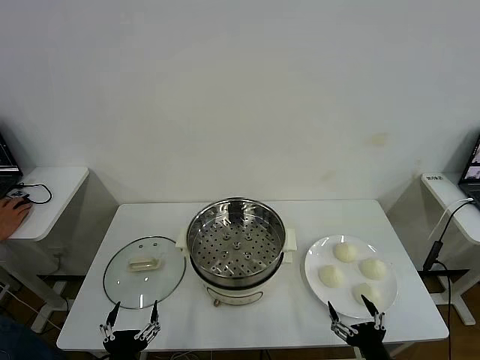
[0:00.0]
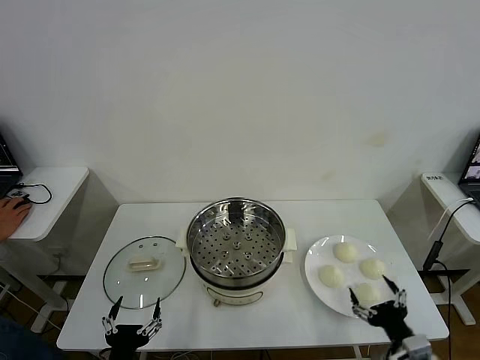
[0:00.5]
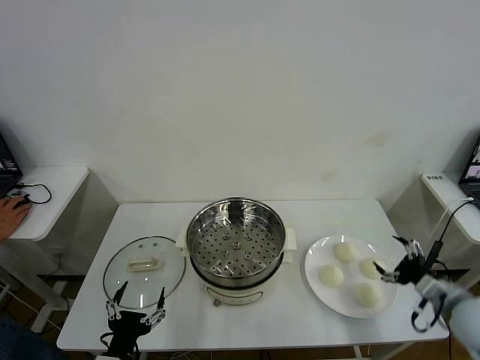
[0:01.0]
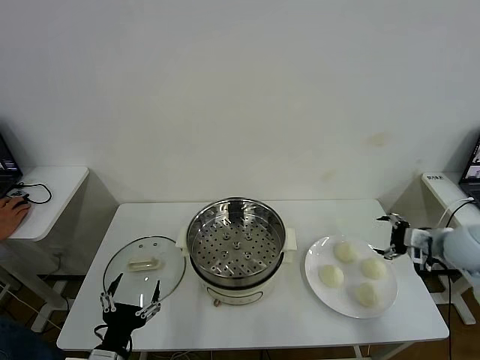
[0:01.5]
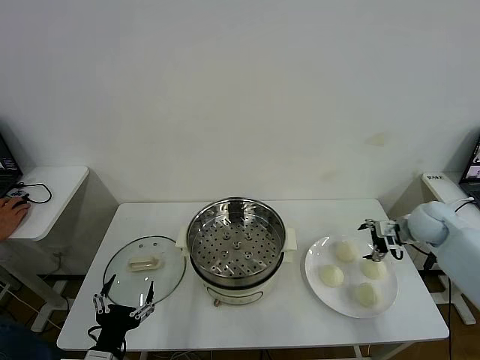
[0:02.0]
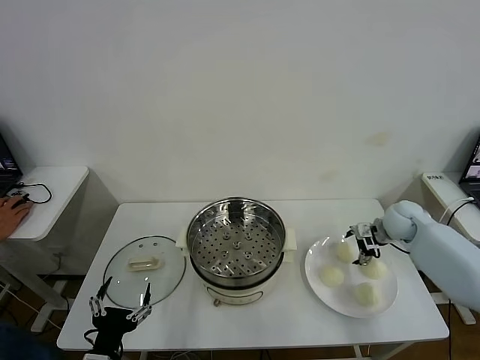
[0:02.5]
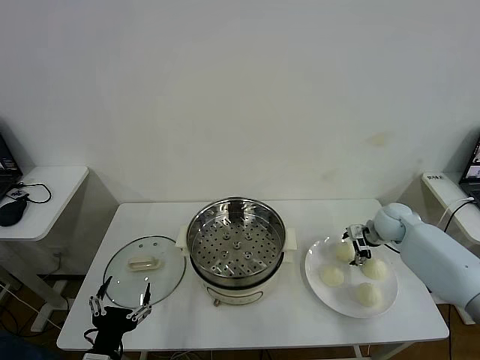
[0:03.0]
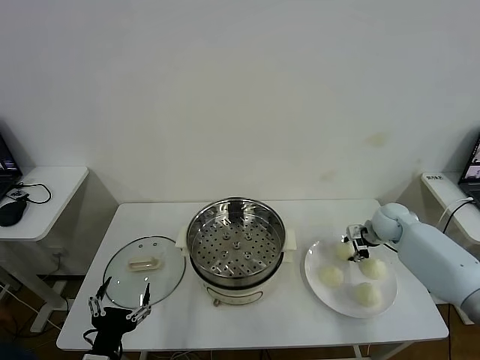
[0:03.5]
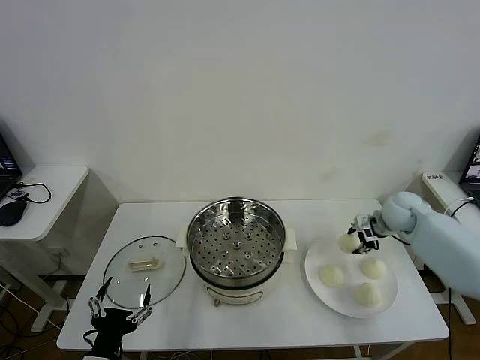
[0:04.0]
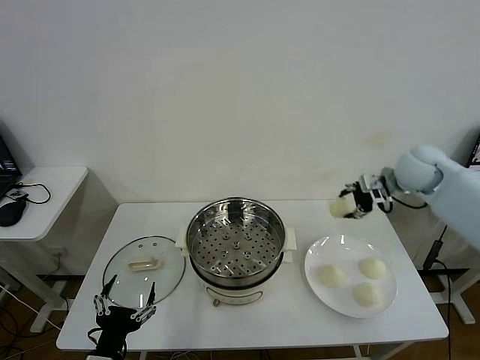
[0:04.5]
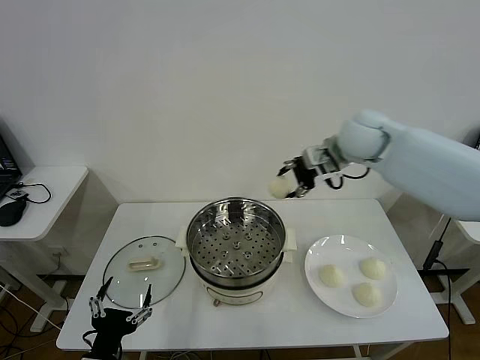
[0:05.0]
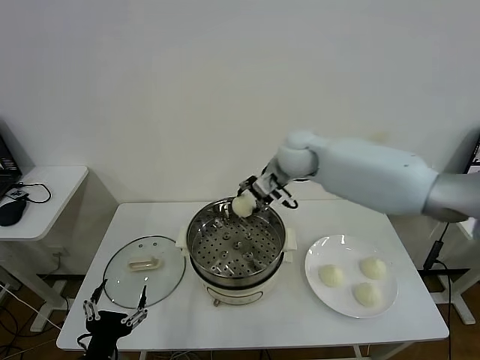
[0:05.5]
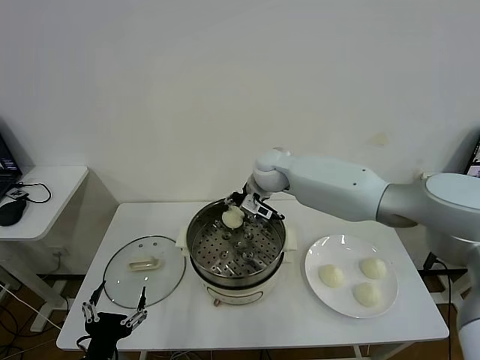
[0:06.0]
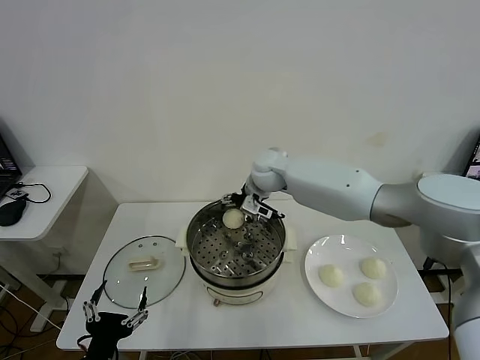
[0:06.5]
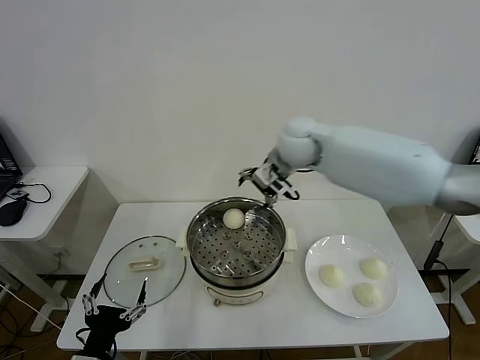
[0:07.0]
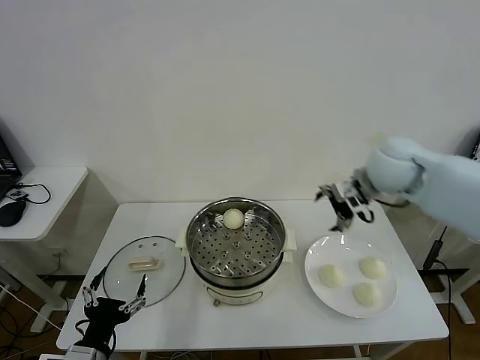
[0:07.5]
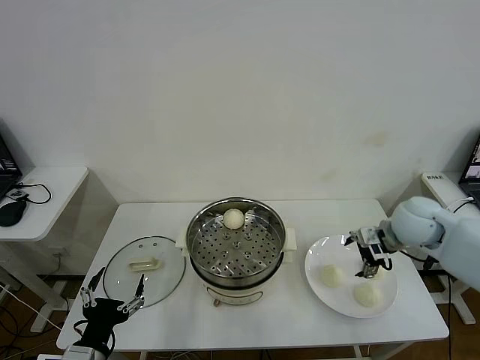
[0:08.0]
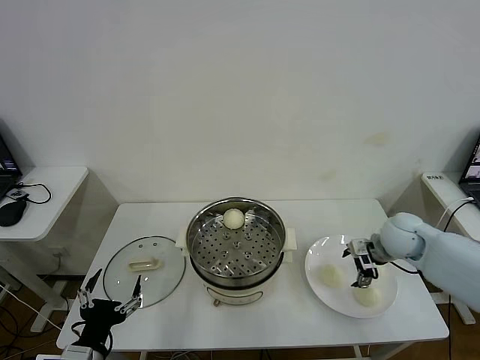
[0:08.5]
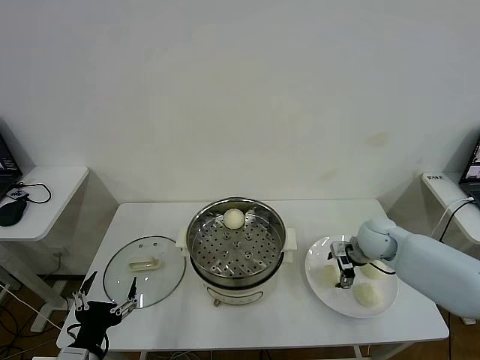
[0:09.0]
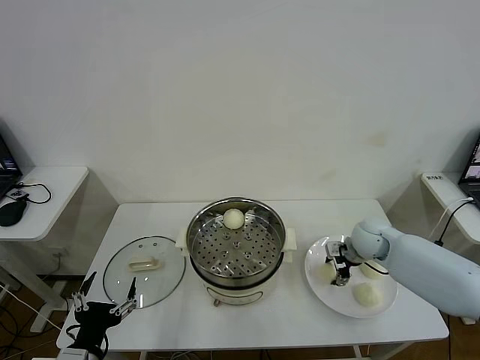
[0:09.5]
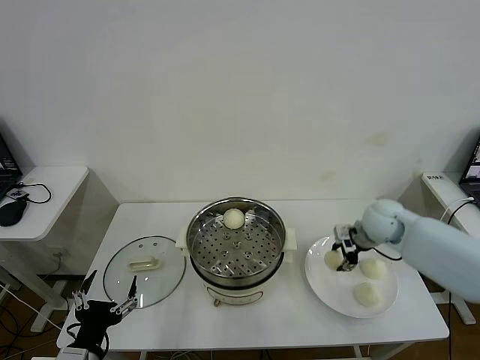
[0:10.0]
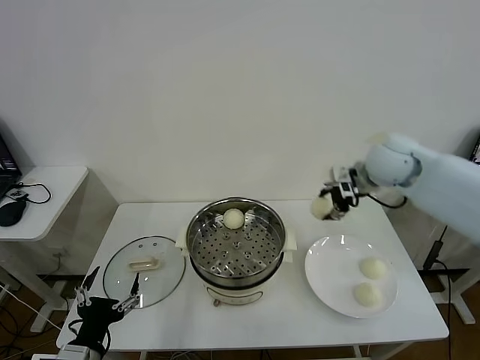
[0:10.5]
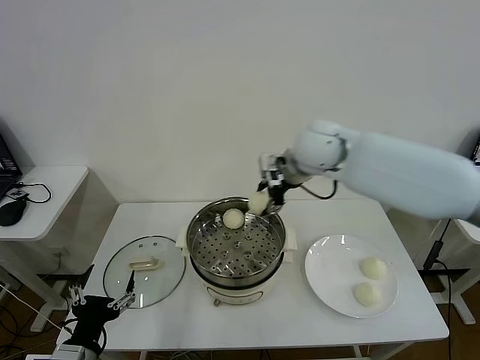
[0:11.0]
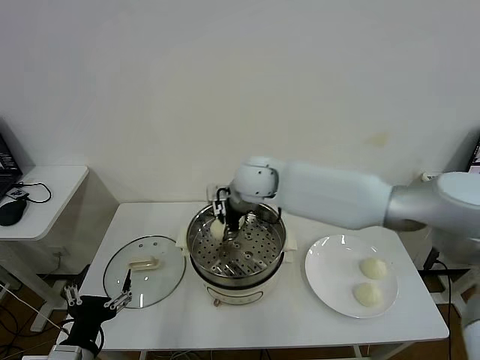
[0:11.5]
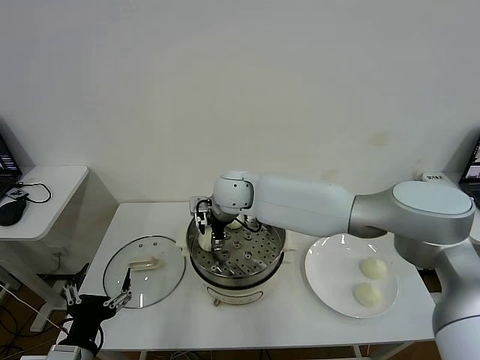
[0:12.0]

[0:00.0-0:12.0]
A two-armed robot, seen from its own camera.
Task of the whole recording: take steamed baozi put them in steamer then cover it.
Step, 0:00.0 to 0:03.0: Grasp the baozi in the plate with right gripper.
Step, 0:03.5 to 0:06.0: Place the baozi on the steamer with right gripper.
Step, 0:07.0 to 0:09.5: Grasp the baozi in the plate with right gripper.
0:02.0 to 0:04.0: The right gripper closes up.
0:04.0 to 0:06.0: The right gripper travels to the left by roughly 35 cm.
0:06.0 to 0:08.0: The right gripper goes approximately 30 cm to the right and backward, and opens.
0:08.0 to 0:10.0: The right gripper closes up.
0:10.0 to 0:12.0: The right gripper moves to the left, roughly 35 cm, and opens its fingers.

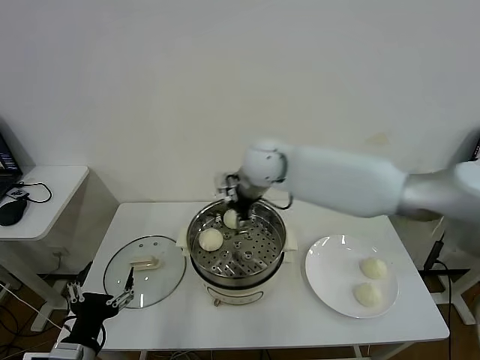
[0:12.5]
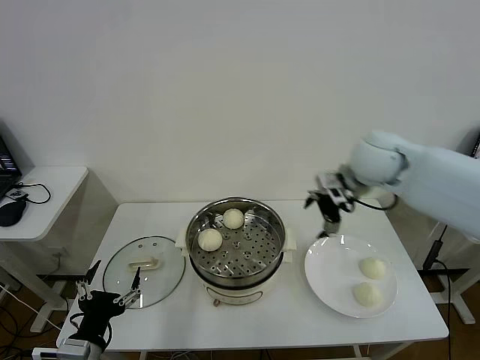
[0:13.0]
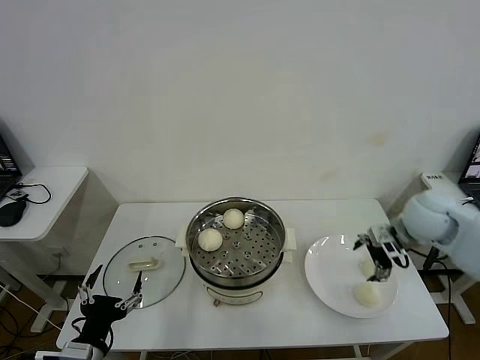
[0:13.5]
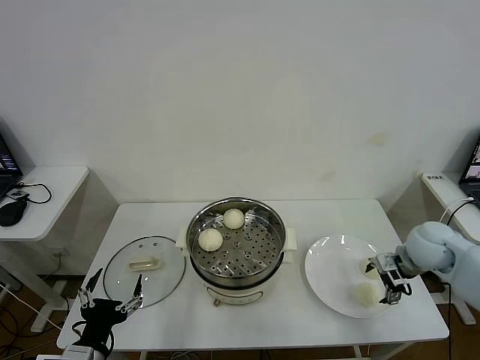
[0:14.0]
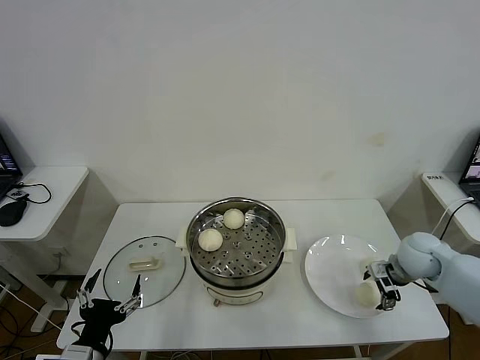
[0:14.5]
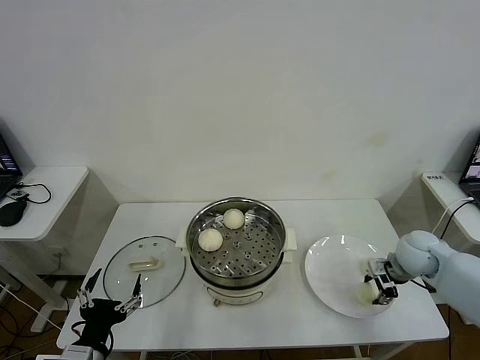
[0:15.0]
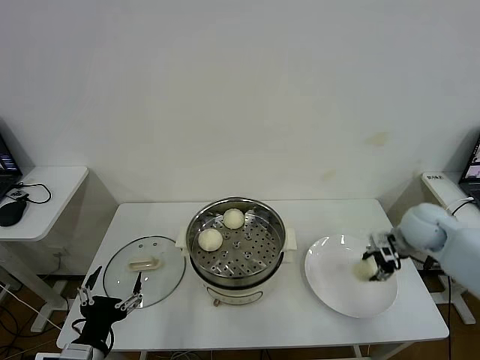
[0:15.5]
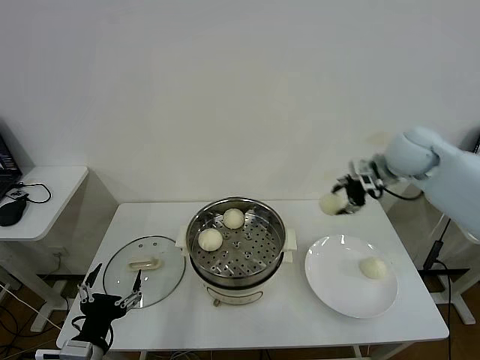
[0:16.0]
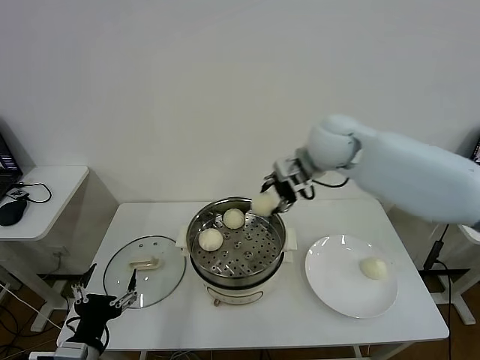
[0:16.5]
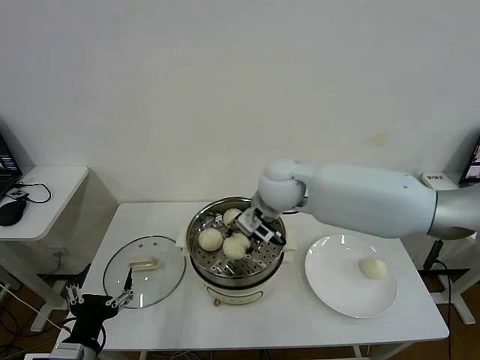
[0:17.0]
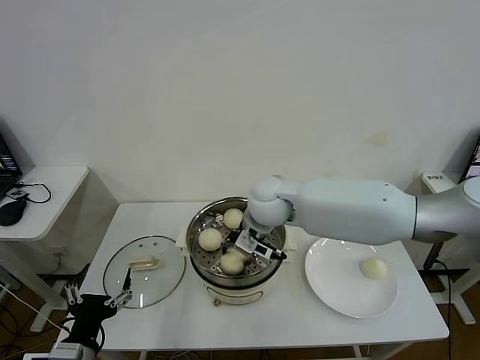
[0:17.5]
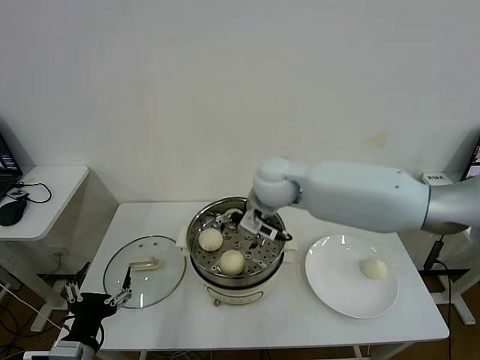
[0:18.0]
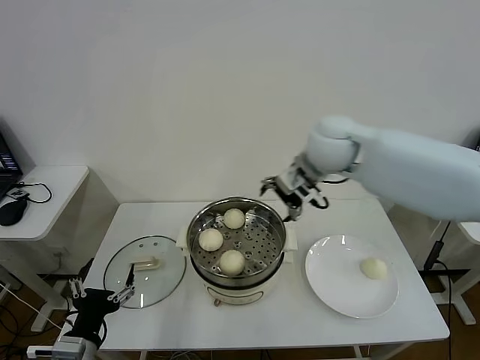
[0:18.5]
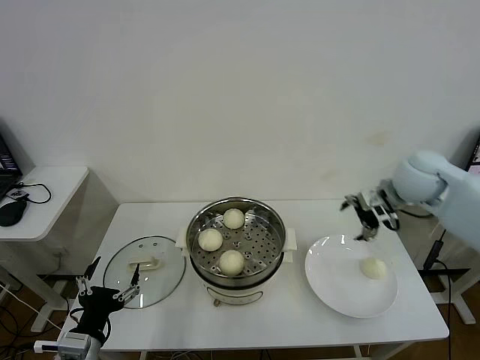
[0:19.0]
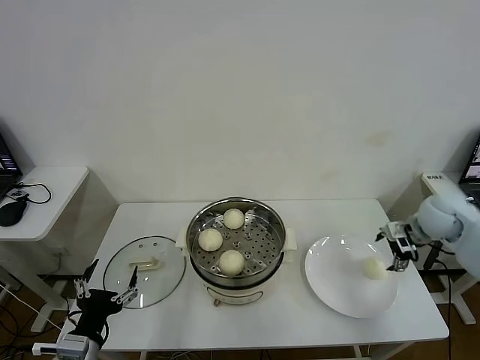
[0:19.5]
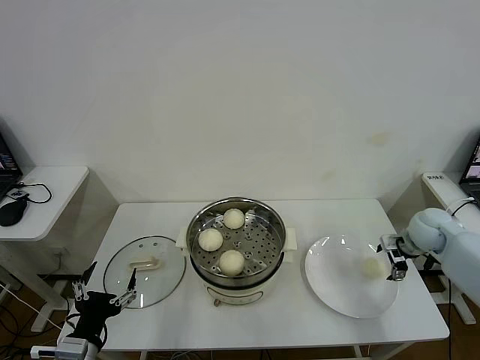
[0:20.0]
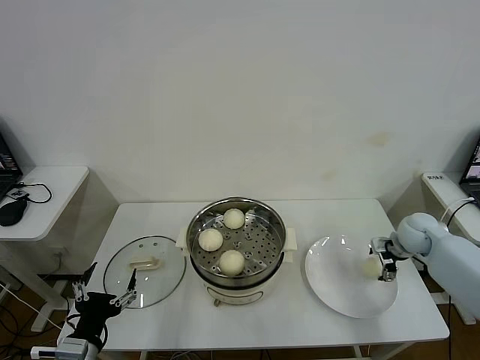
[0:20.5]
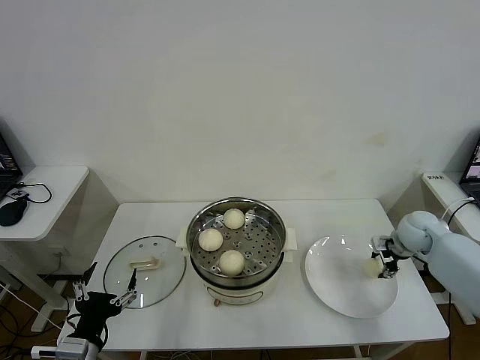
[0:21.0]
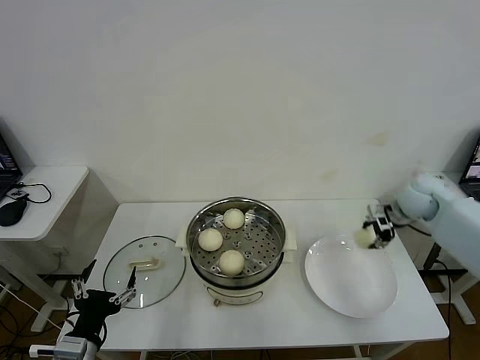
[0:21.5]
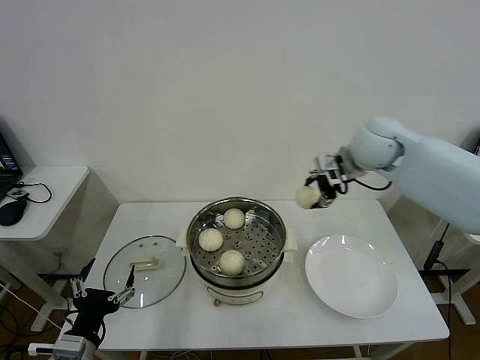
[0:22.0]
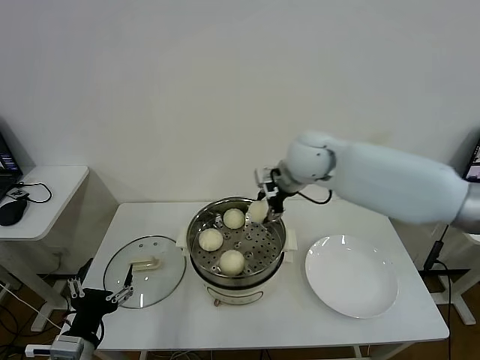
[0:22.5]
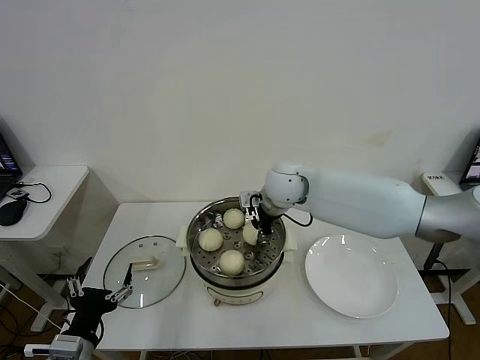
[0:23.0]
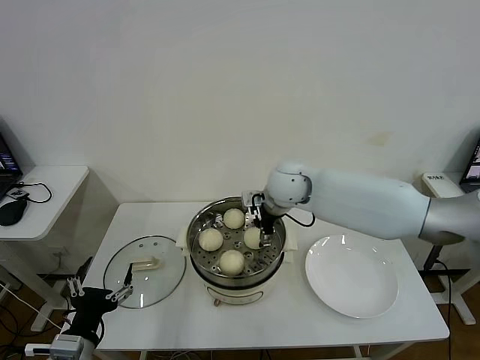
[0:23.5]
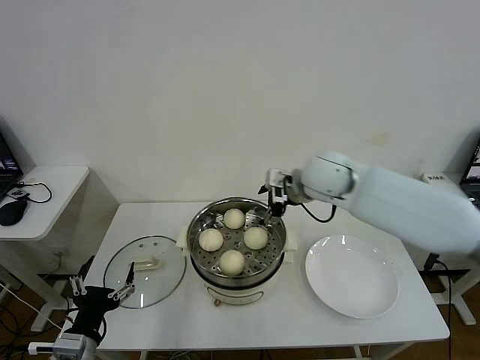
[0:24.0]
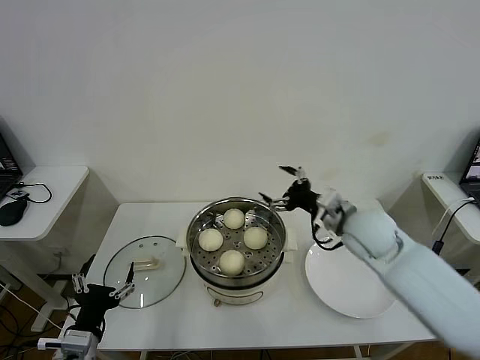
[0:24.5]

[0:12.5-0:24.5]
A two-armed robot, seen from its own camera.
Task of the whole recording: take steamed baozi put them in steamer then cover it.
Step, 0:12.5 to 0:14.5: Grasp the baozi in the plate with right gripper.
Step, 0:15.5 to 0:17.5: Place the baozi on the steamer with right gripper.
Step, 0:18.0 to 0:20.5: Grasp the baozi in the plate with right gripper.
Step, 0:21.5 to 0:23.5: Place the baozi on the steamer with right gripper.
0:12.5 to 0:14.5: The right gripper heads to the right and downward, covering about 40 cm.
0:14.5 to 0:16.5: The right gripper is displaced to the left, upward and forward by roughly 35 cm, and closes its fingers.
0:16.5 to 0:18.5: The right gripper goes downward and returns, some 10 cm each way, and opens.
0:18.5 to 0:20.5: The right gripper heads to the right and downward, covering about 35 cm.
0:20.5 to 0:22.5: The right gripper is displaced to the left and upward by about 35 cm, and closes up.
0:22.5 to 0:24.5: The right gripper travels to the right, backward and downward by approximately 20 cm, and opens up.

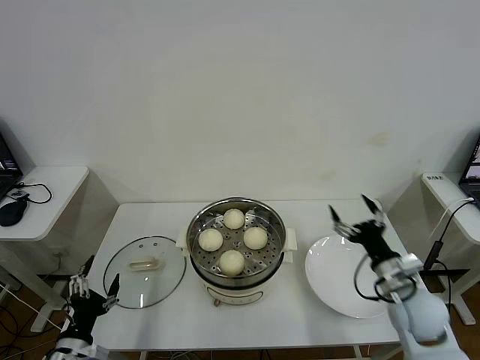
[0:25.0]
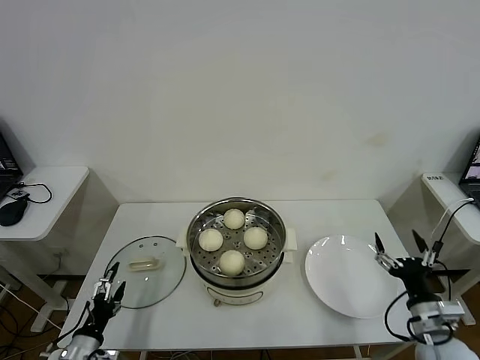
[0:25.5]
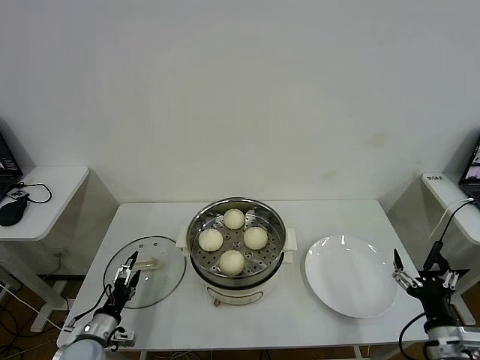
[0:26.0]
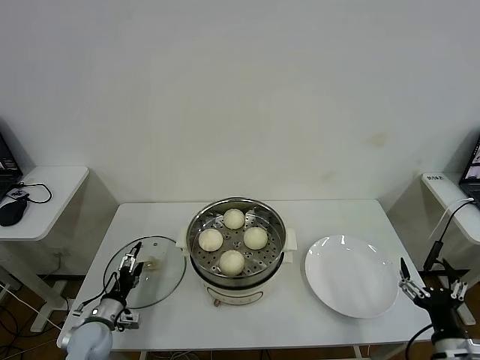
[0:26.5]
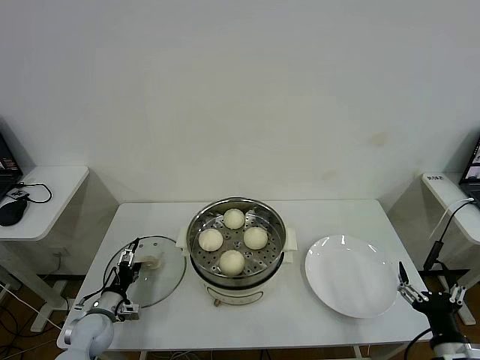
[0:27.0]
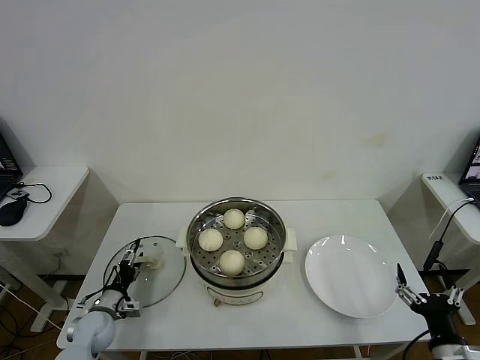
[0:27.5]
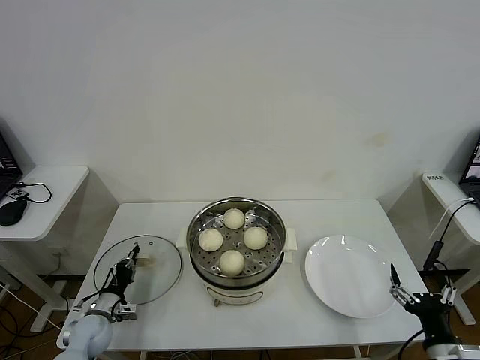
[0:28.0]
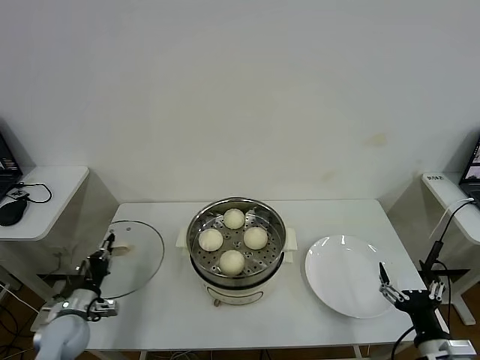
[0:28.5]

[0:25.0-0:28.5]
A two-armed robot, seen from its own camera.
Task of the whole recording: take steamed baozi put them in steamer then cover it.
Step, 0:25.0 to 0:28.0: Grasp the pot lid with left gripper.
0:25.0 to 0:27.0: The right gripper goes about 15 cm backward. Meanwhile the left gripper travels forward and downward by roughly 20 cm.
0:27.0 to 0:28.5: The left gripper changes place by roughly 5 cm, and closes up.
